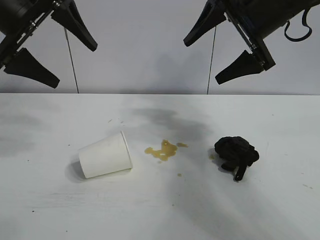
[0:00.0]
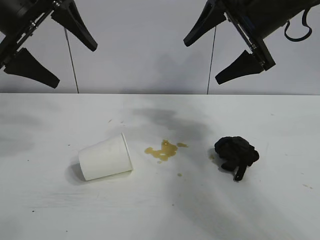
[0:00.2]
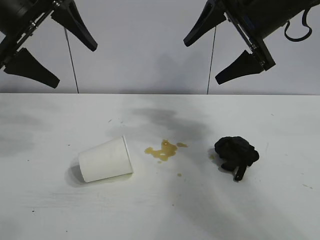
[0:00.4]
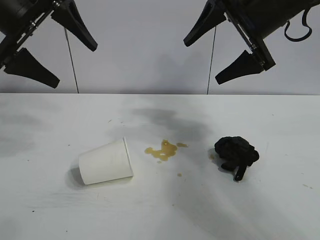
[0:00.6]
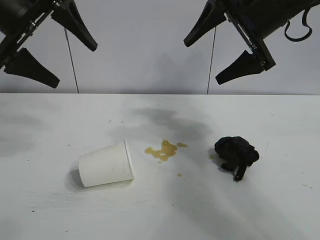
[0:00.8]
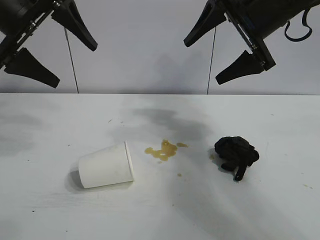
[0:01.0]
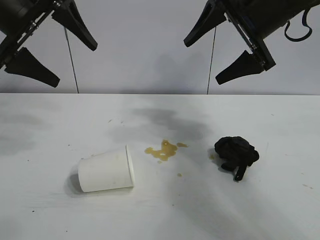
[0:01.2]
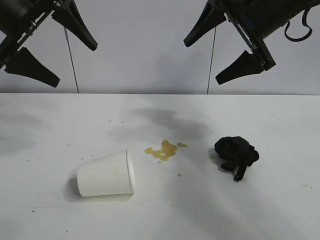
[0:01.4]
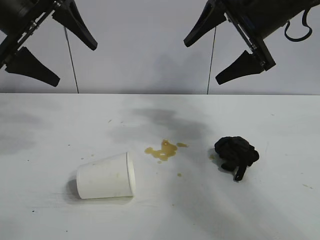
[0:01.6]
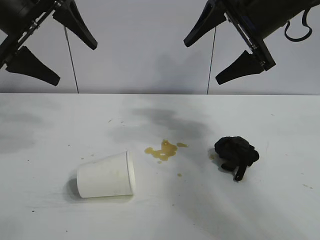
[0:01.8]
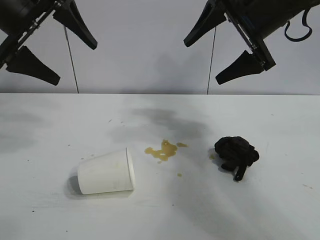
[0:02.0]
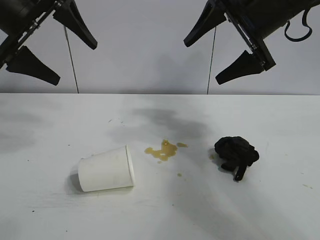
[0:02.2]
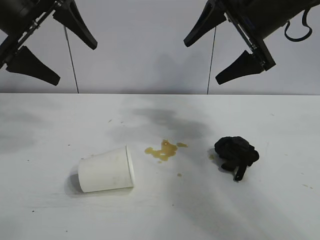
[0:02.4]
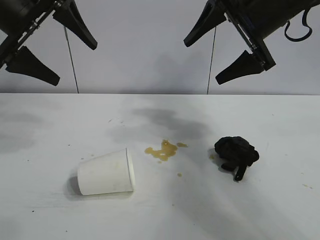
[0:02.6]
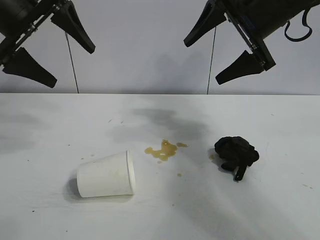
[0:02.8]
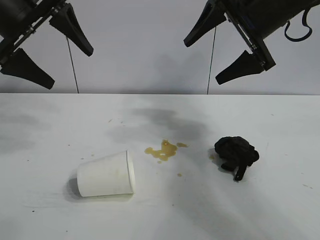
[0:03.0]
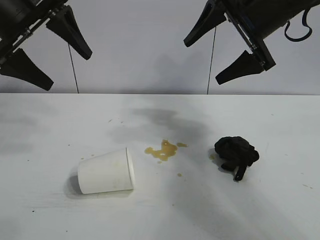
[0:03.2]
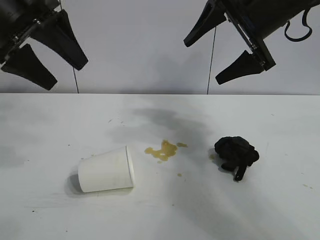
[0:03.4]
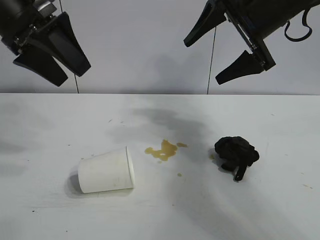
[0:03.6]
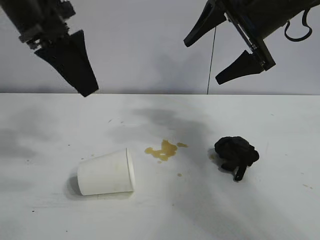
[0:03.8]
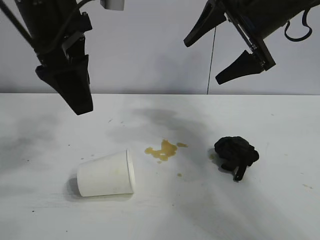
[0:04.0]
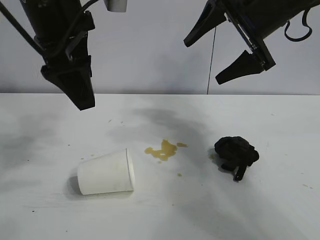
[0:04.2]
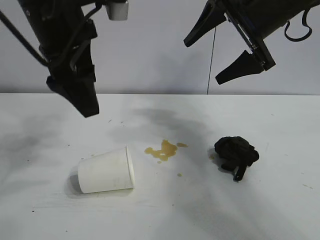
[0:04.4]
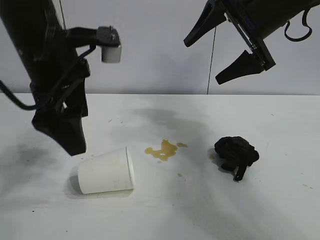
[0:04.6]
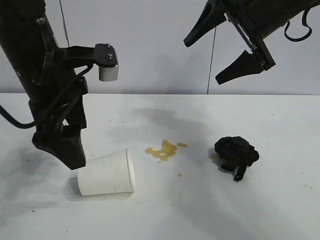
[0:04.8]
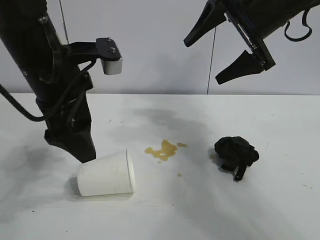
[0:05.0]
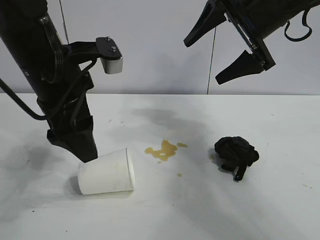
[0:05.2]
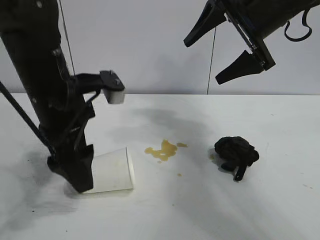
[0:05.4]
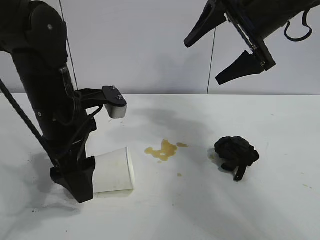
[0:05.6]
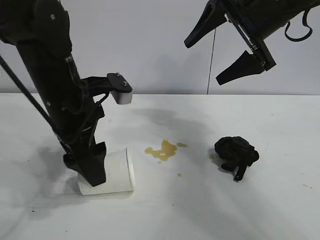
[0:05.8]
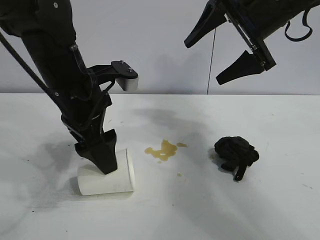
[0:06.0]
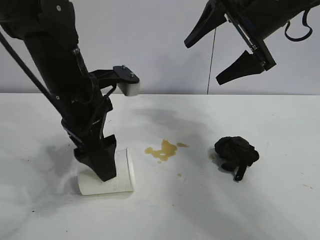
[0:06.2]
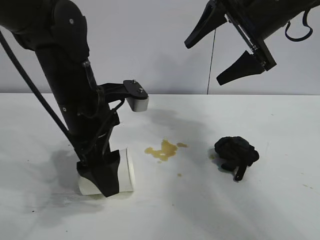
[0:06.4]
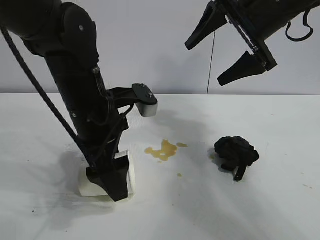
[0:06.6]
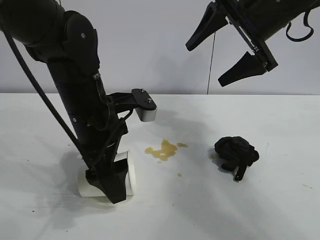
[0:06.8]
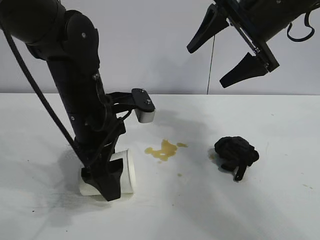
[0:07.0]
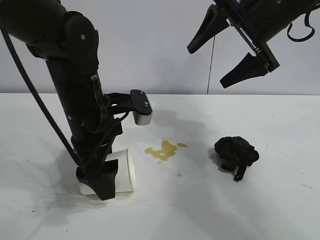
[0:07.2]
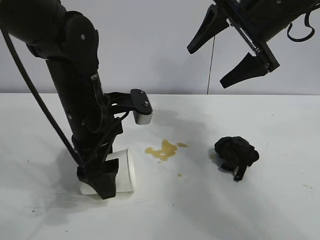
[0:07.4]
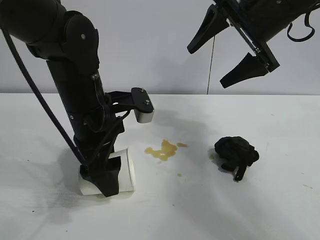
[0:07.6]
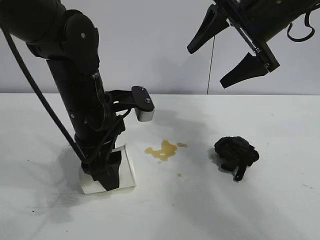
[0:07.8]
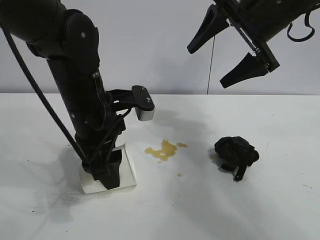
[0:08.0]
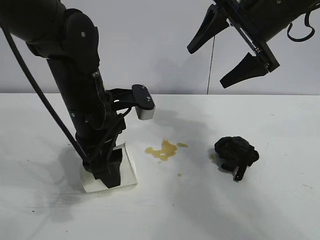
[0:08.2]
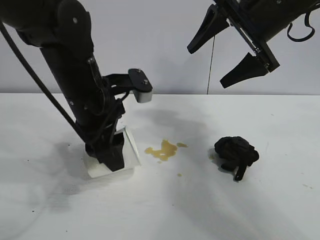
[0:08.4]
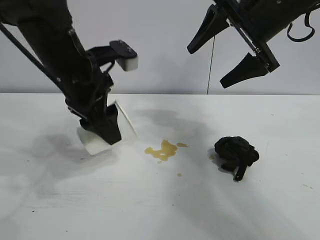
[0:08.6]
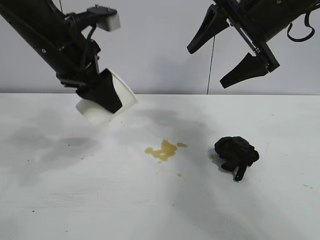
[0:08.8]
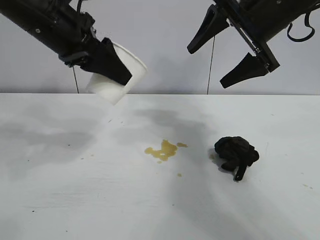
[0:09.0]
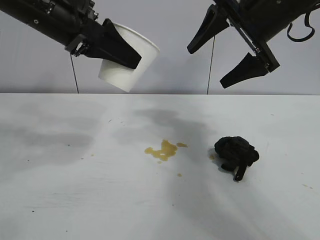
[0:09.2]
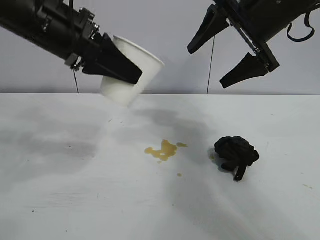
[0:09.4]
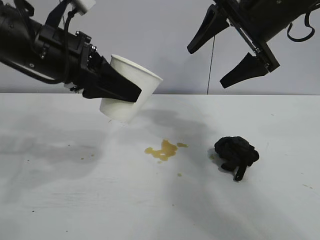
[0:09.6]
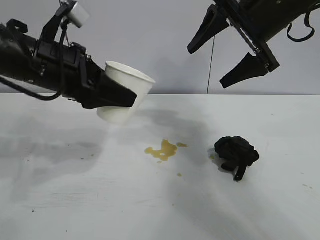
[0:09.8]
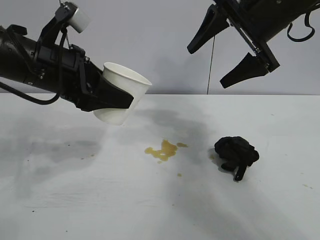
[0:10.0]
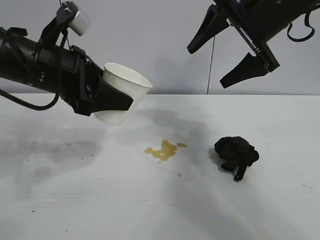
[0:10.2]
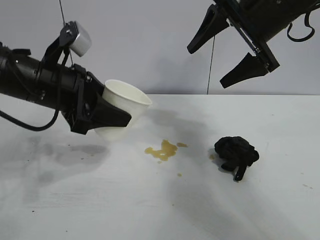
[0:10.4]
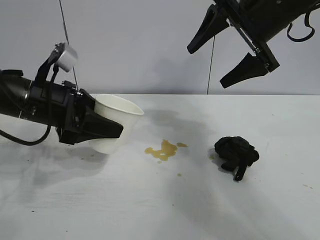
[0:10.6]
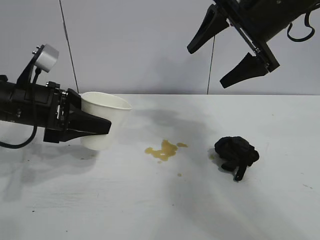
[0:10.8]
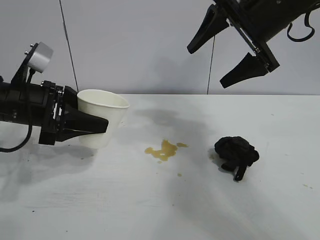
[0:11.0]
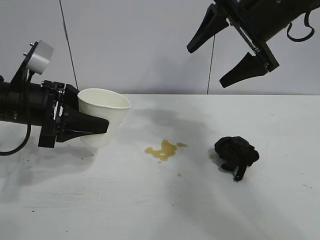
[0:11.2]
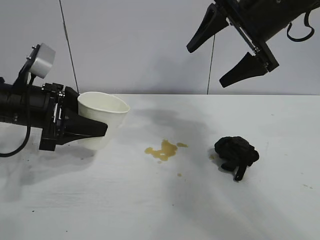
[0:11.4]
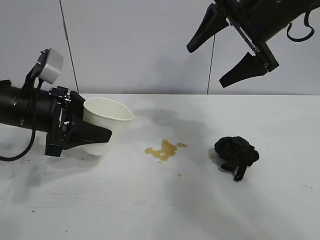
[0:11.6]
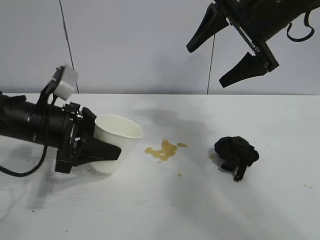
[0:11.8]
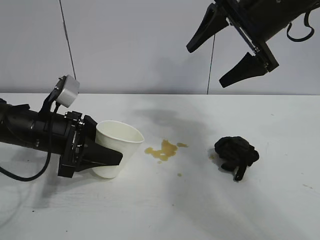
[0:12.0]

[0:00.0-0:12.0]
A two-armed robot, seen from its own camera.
Task of the whole recording: the left gripper pick up the fallen cup and place it upright, the right gripper grasp the black rag and wipe the stain on the table, the right gripper put the black rag back in its original position.
Step, 0:02.6 to 0:08.0: Grasp the paper cup with left gripper.

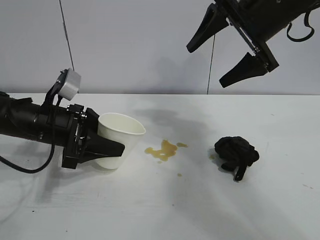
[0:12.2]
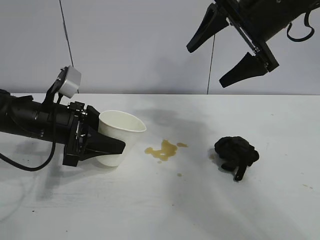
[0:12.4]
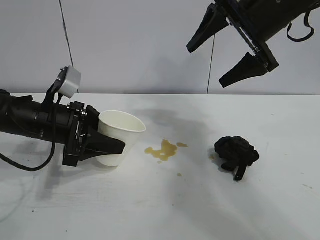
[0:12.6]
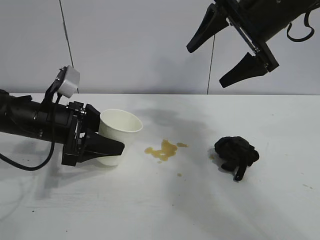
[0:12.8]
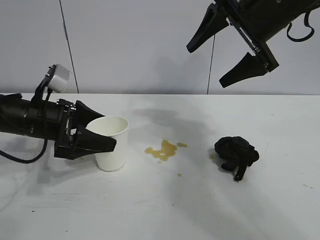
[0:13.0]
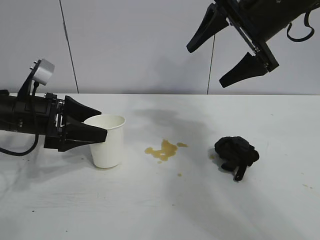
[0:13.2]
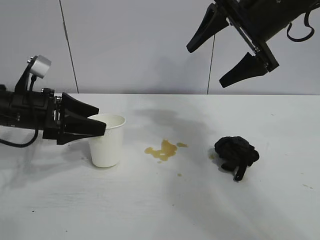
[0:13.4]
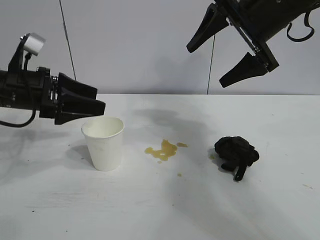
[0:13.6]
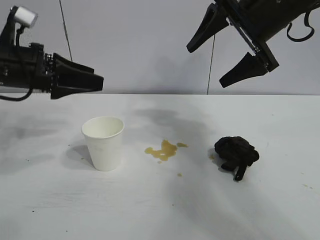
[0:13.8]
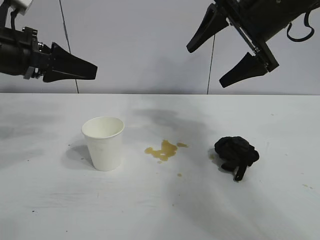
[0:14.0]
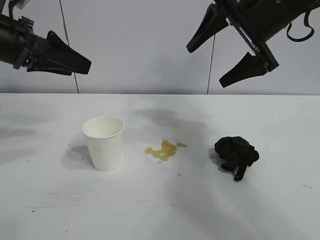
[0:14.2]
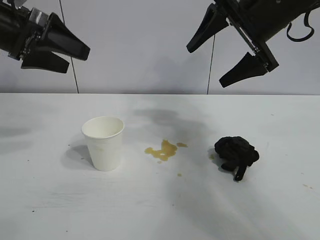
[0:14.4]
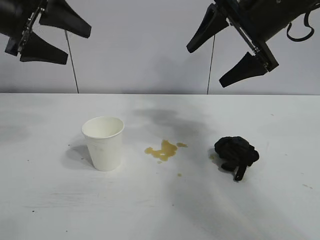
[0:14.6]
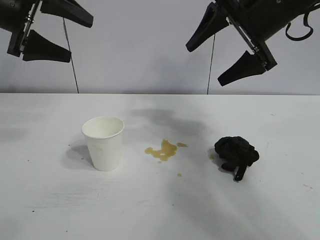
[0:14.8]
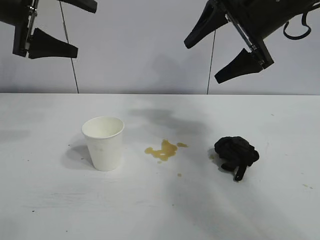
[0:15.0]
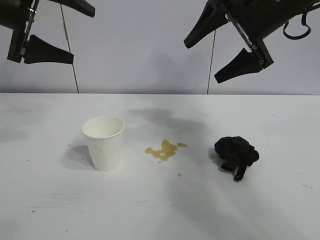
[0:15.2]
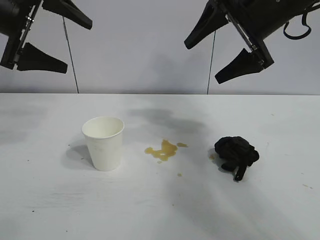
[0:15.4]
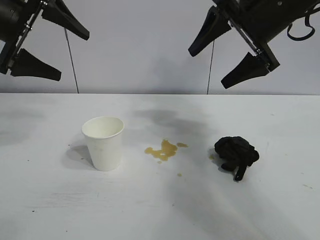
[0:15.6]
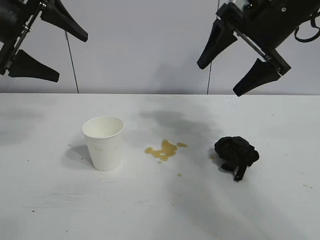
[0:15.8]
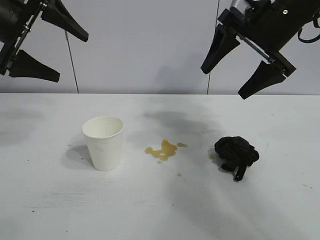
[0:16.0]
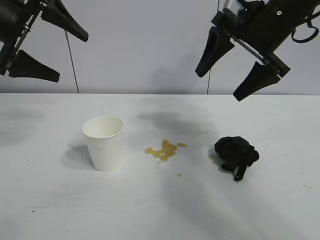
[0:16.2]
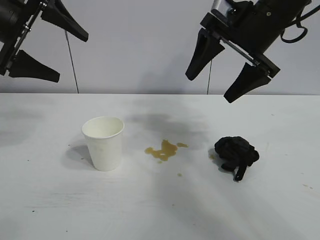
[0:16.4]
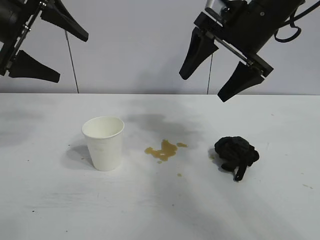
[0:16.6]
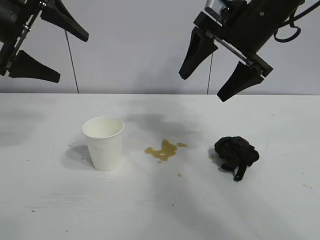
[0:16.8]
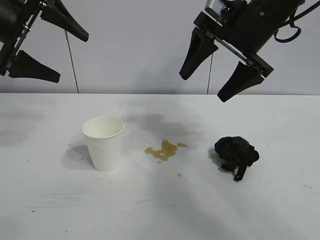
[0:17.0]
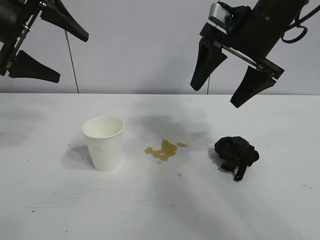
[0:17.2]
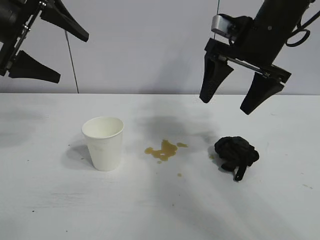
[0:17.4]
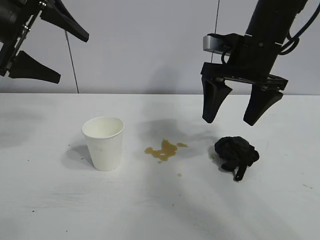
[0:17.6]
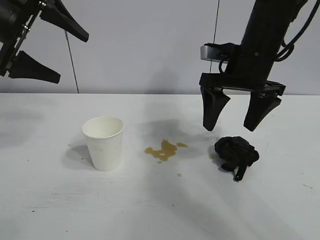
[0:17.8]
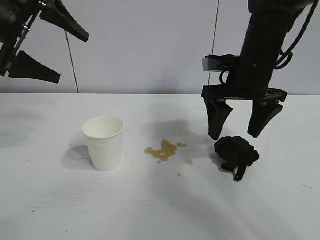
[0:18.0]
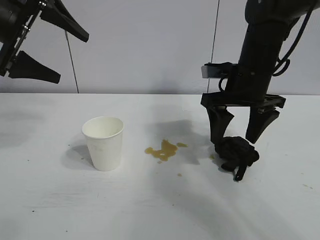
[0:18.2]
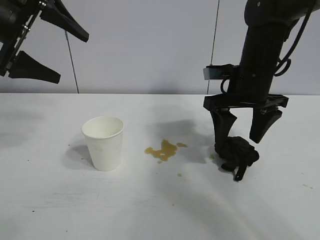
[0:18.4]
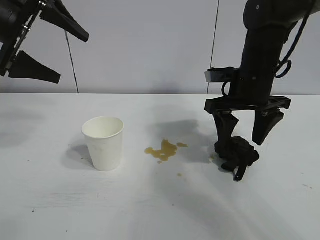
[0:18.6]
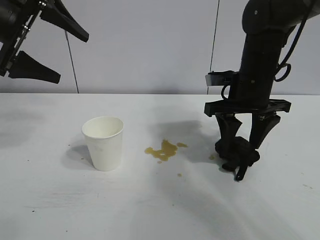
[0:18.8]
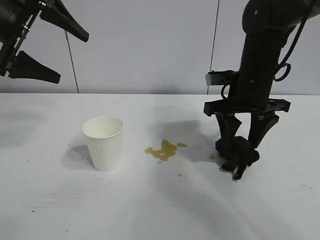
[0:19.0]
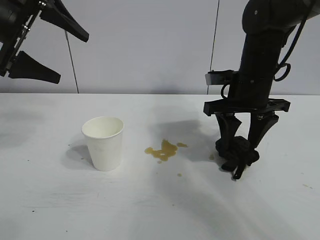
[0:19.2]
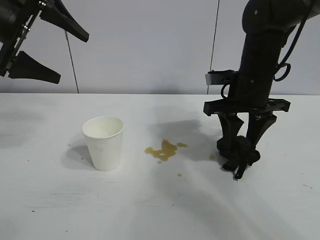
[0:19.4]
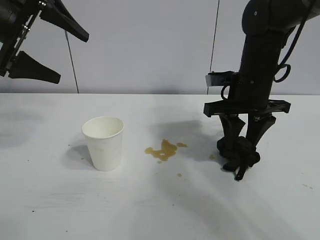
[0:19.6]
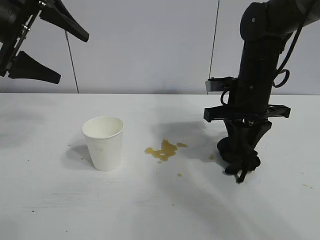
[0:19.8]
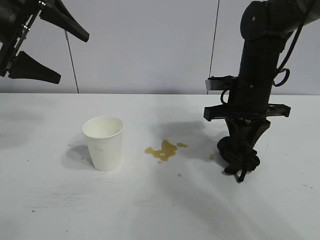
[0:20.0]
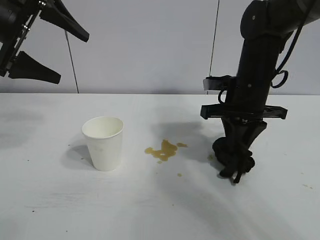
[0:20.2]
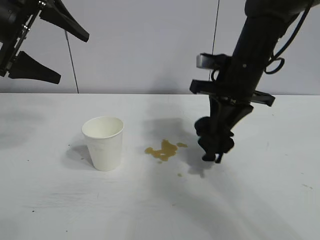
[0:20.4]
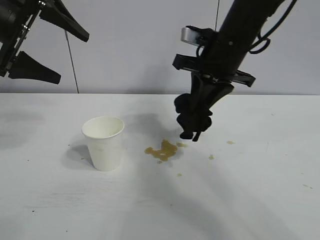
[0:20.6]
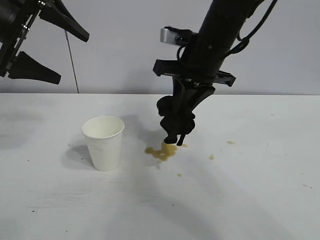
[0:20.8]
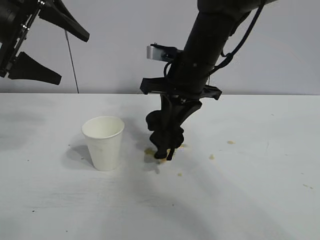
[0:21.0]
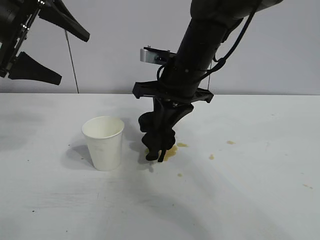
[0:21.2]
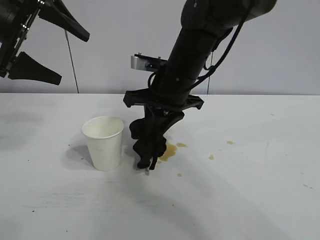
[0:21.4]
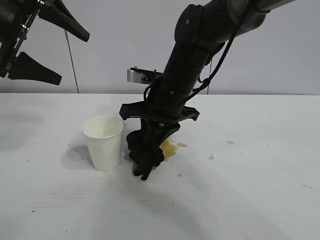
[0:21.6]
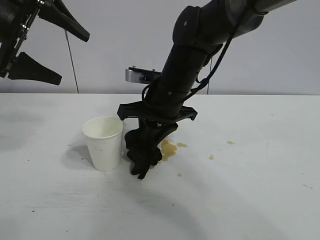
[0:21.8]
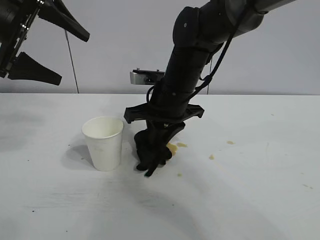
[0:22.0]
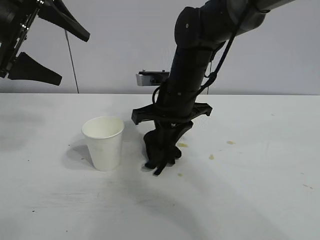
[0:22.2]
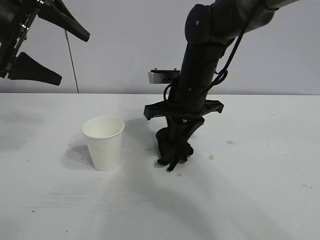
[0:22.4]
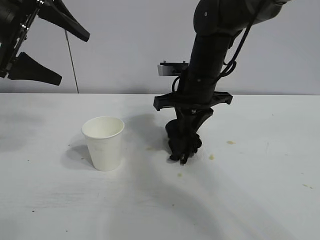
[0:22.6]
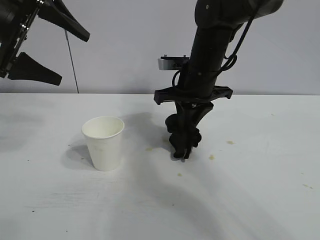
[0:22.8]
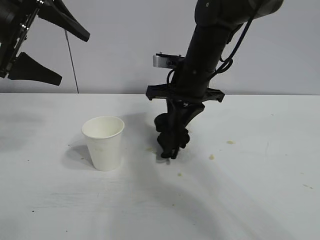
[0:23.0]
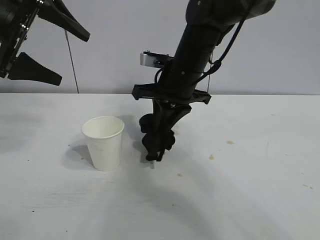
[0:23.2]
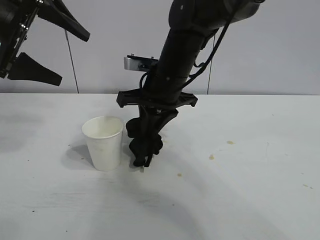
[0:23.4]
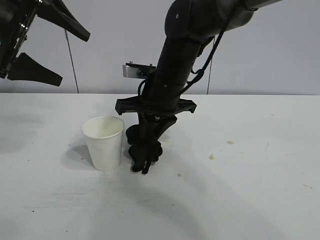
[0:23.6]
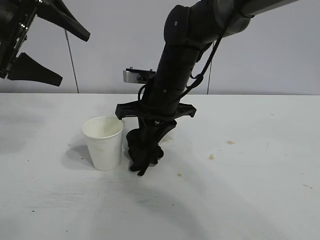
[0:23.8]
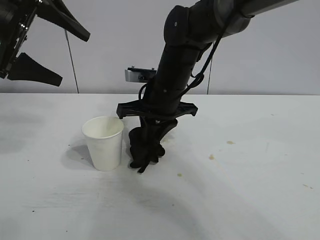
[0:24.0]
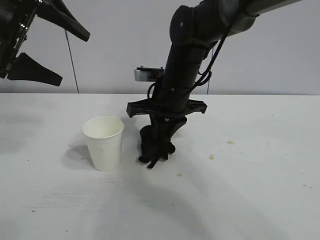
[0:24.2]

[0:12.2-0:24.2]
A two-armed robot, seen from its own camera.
Task of the whole recording: the left gripper pick up the fallen cup and place it upright, the right gripper grasp the black rag and wipe the stain on the table, the right gripper put the black rag back in its original position.
Step, 0:13.0 to 0:19.8: Grasp the rag with right gripper.
